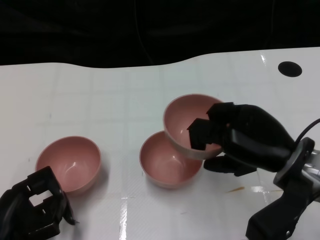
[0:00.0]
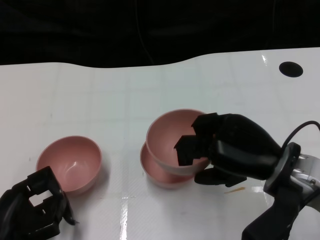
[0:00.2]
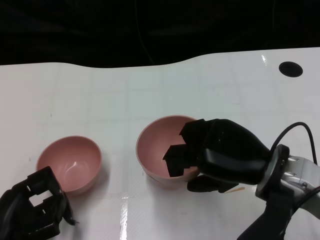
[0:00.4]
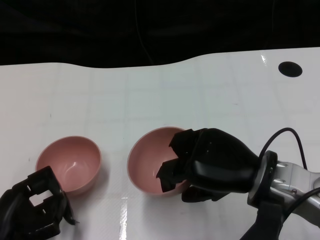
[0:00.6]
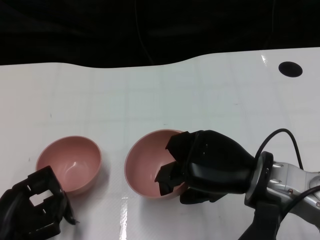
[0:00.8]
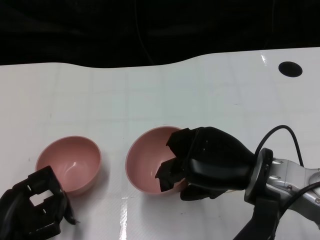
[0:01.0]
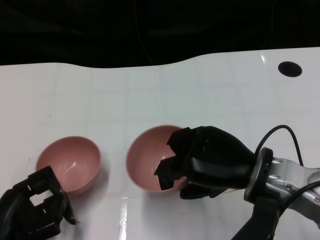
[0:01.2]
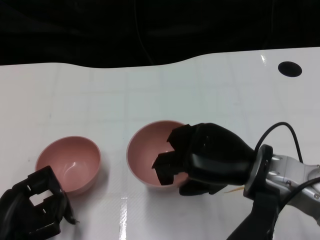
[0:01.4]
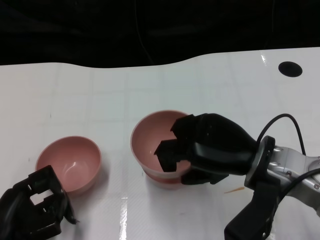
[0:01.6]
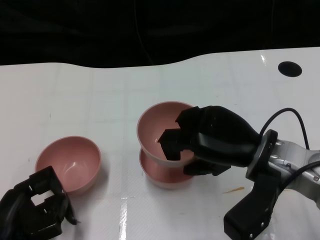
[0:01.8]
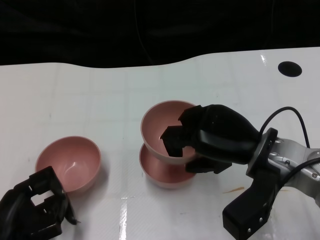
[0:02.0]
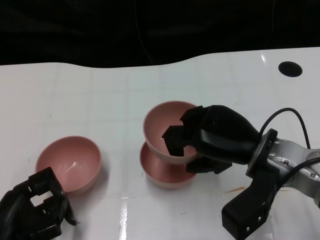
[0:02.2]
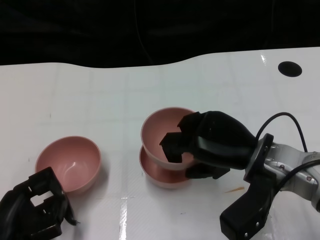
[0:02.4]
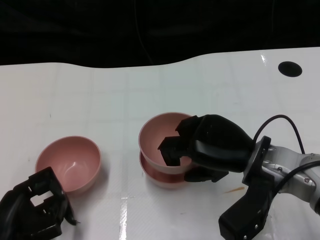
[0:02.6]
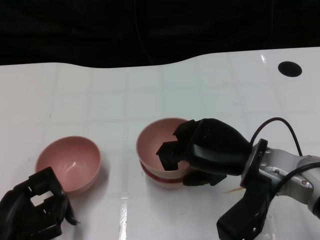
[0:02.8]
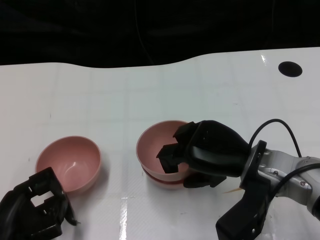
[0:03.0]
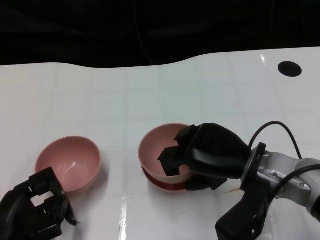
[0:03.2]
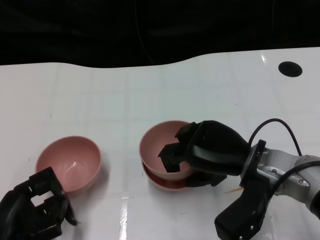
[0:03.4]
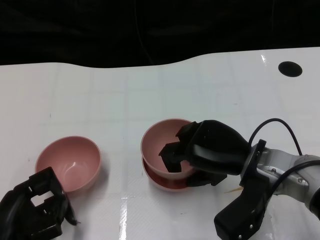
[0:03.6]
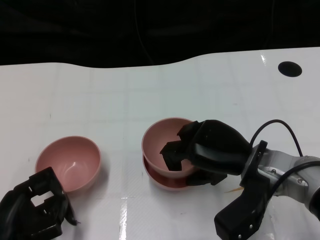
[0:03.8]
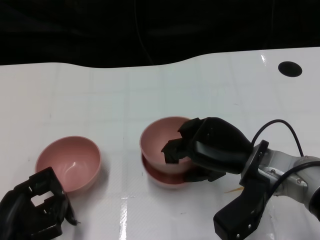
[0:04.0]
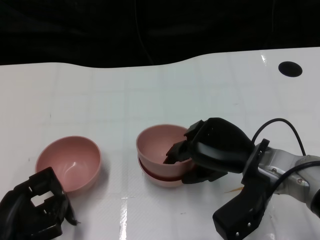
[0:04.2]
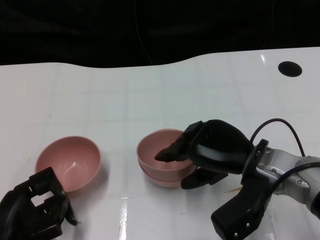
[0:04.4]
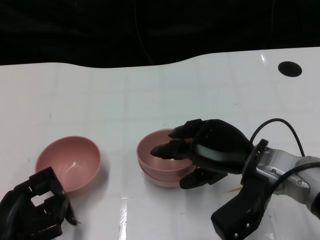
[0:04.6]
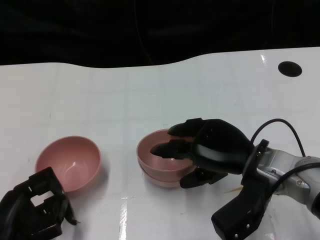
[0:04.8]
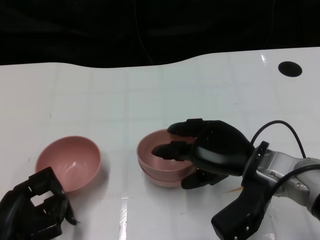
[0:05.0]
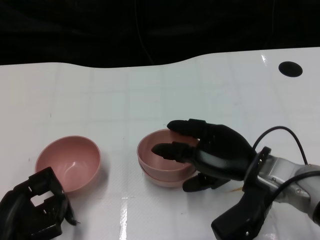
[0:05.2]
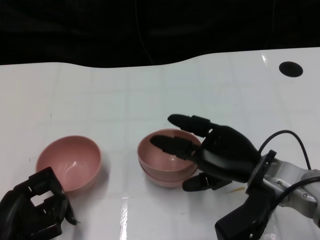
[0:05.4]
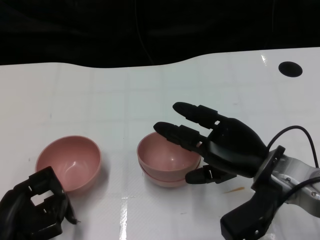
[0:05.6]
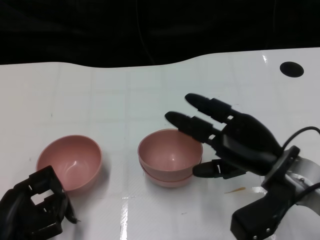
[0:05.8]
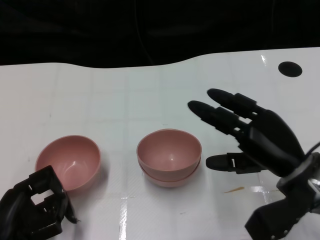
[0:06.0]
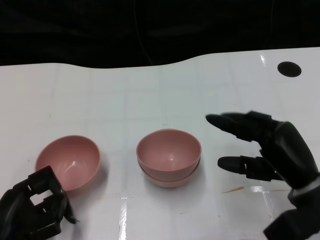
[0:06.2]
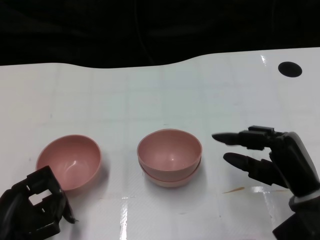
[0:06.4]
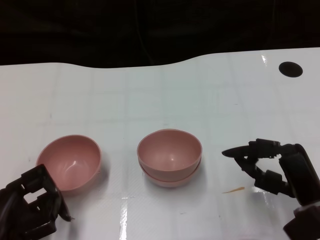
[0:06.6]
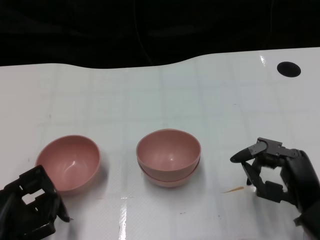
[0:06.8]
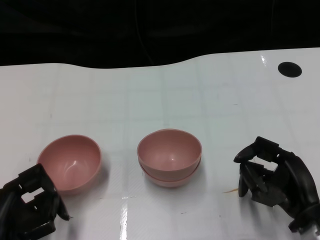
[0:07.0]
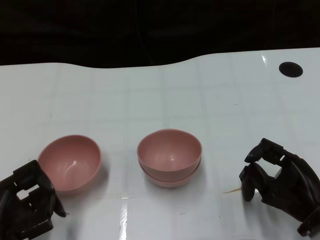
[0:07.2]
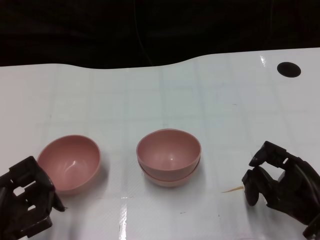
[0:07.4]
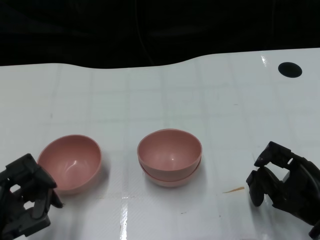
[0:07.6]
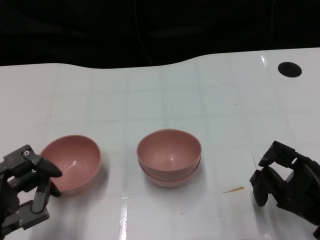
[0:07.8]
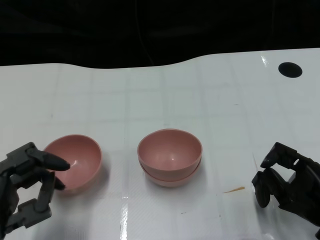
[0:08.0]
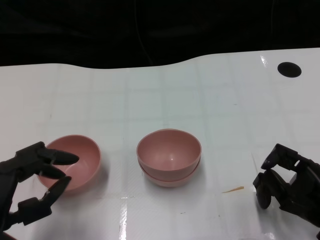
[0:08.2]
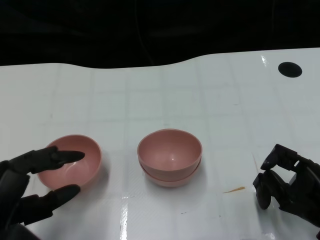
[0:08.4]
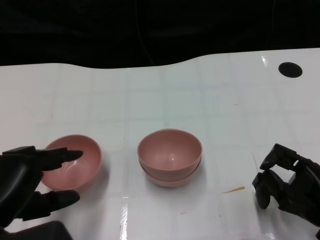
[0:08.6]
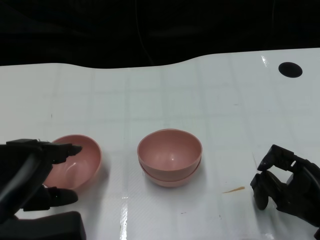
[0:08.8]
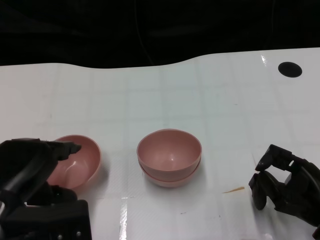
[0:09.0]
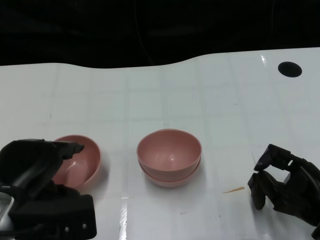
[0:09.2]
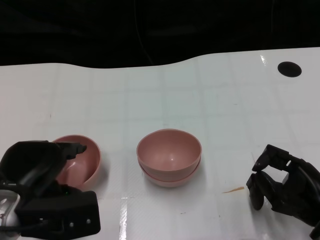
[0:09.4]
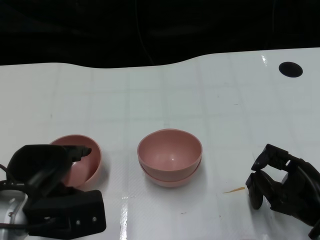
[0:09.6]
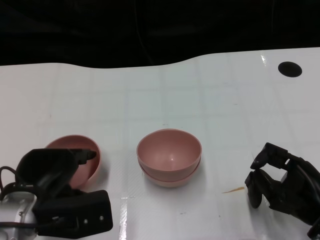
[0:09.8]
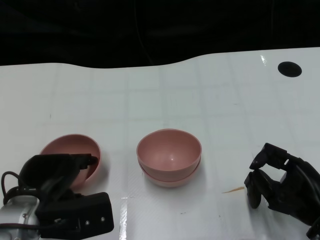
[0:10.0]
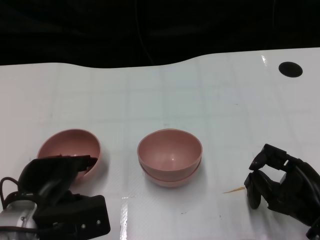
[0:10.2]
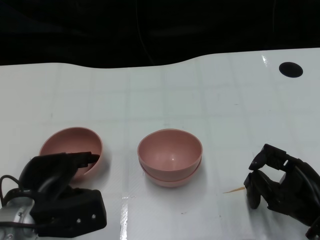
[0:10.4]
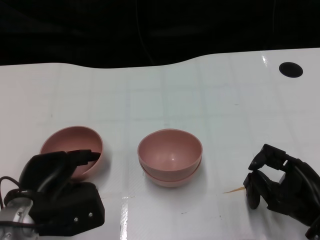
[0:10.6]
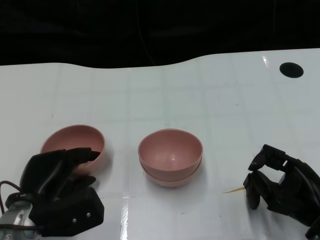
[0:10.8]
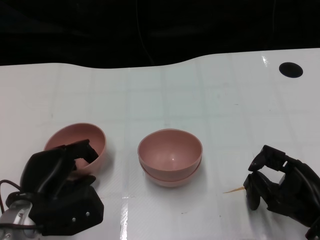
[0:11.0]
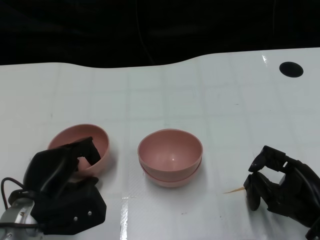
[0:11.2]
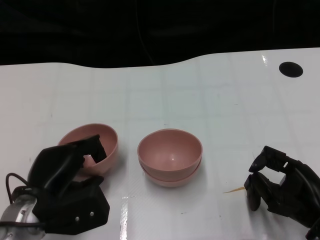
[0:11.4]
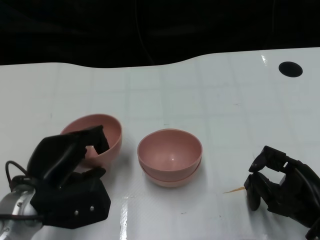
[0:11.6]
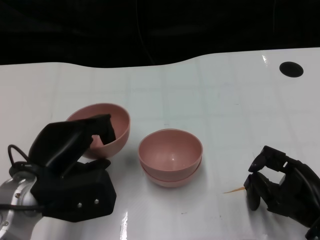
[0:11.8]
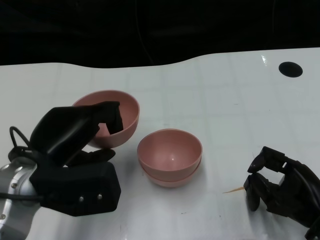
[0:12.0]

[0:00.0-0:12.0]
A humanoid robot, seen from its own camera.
Task of the whole recording: Pick up the bowl on one side of the table and place it on top of the middle bowl, then pick up the bowl on the other side of the table and place it on top of the middle bowls.
Step, 0:00.0 to 0:05.8: Place the bowl on the right onto the bowl in the middle with right gripper.
Step, 0:06.0 to 0:11.4: Grasp the bowl on the left with the left gripper.
0:00.0 to 0:03.0: The hands make only small movements.
0:03.0 to 0:04.4: The hands stay close to where they were, moving slightly.
0:04.4 to 0:06.0: The right hand travels to the right by about 5 cm.
0:06.0 to 0:07.6: The right hand is displaced downward and to the right by some 10 cm.
0:07.6 to 0:09.0: The left hand is displaced upward by approximately 5 cm.
0:09.0 to 0:10.4: The left hand moves downward, roughly 5 cm.
0:10.4 to 0:12.0: The left hand moves upward, some 10 cm.

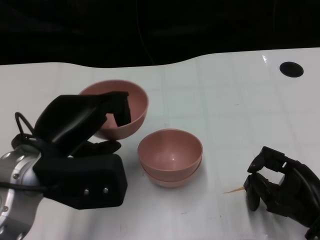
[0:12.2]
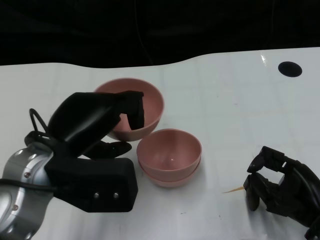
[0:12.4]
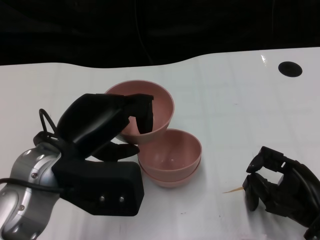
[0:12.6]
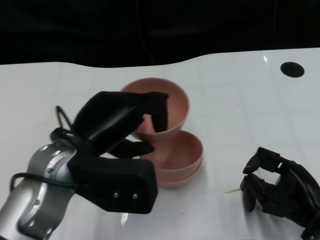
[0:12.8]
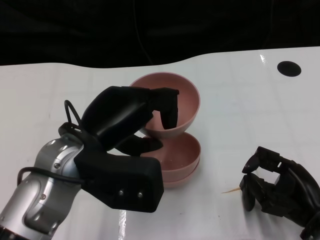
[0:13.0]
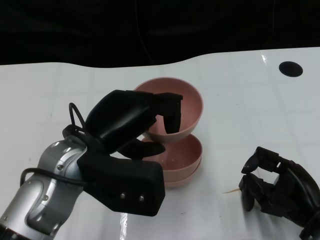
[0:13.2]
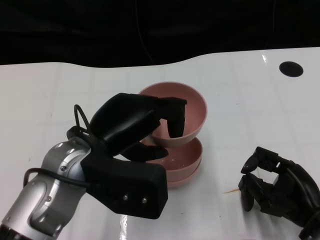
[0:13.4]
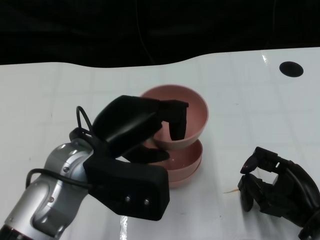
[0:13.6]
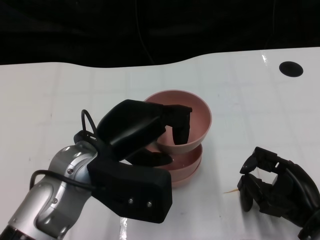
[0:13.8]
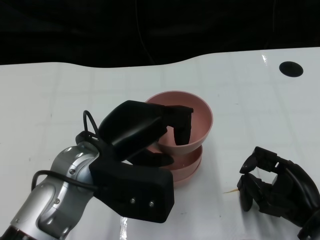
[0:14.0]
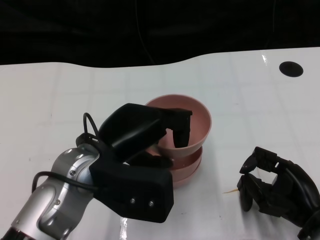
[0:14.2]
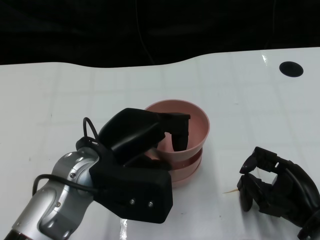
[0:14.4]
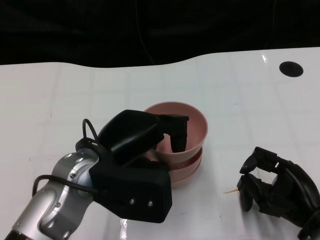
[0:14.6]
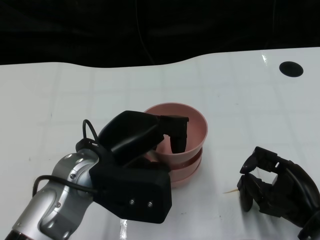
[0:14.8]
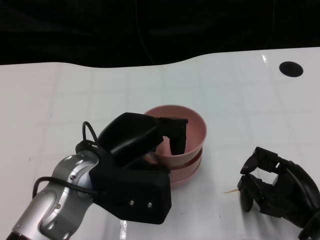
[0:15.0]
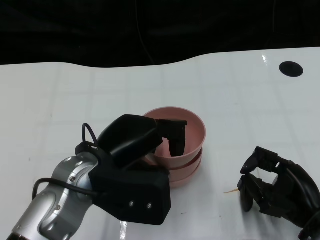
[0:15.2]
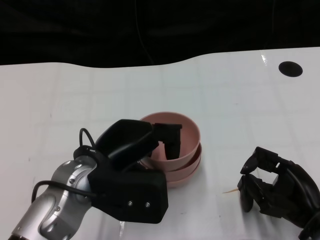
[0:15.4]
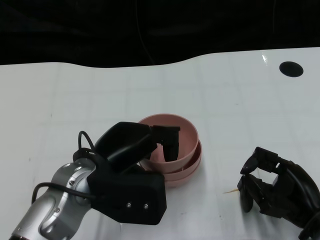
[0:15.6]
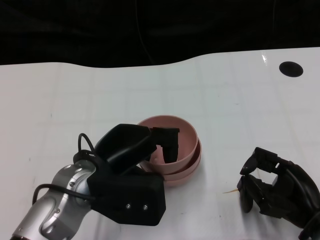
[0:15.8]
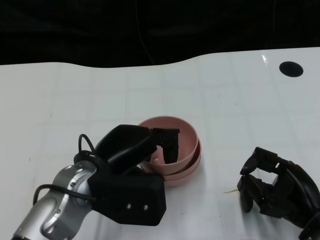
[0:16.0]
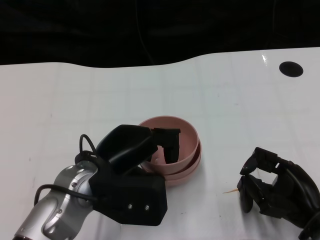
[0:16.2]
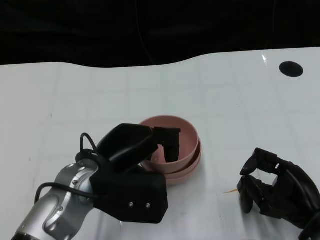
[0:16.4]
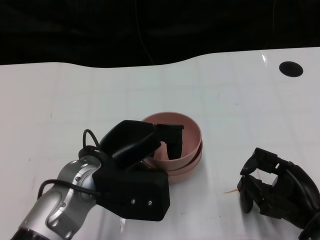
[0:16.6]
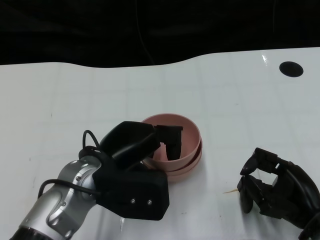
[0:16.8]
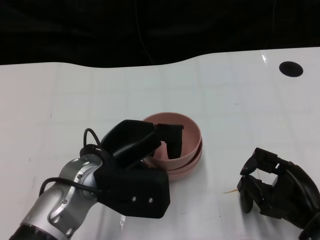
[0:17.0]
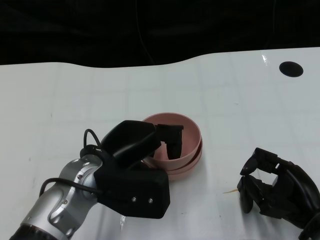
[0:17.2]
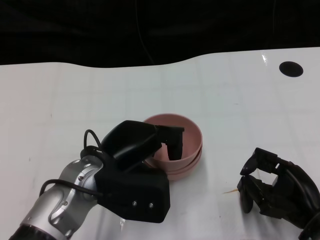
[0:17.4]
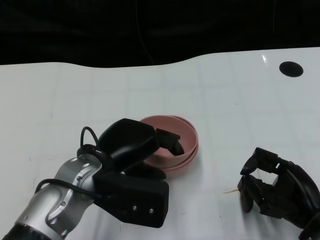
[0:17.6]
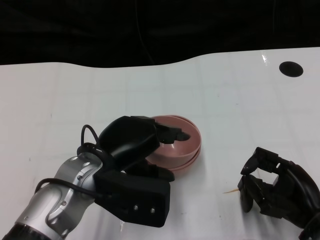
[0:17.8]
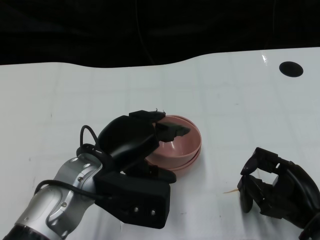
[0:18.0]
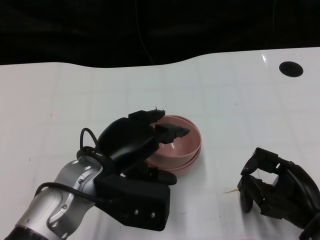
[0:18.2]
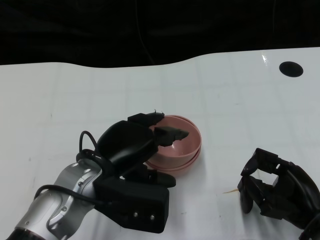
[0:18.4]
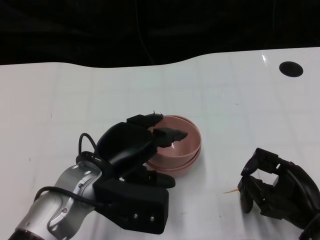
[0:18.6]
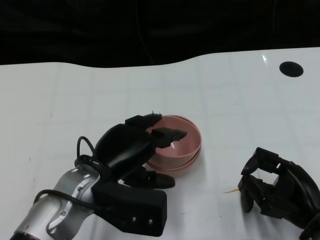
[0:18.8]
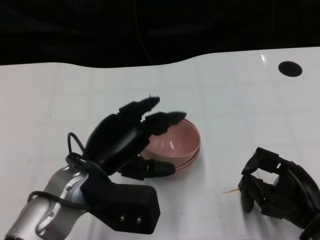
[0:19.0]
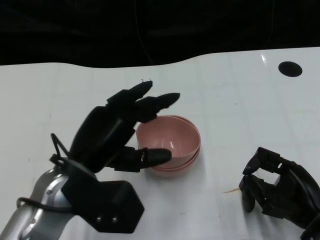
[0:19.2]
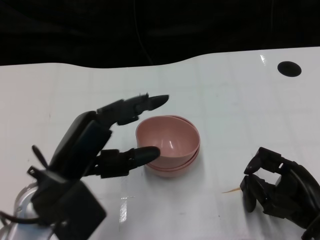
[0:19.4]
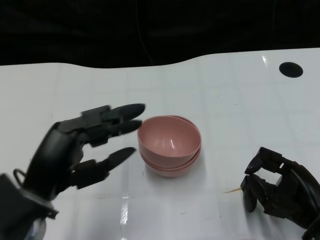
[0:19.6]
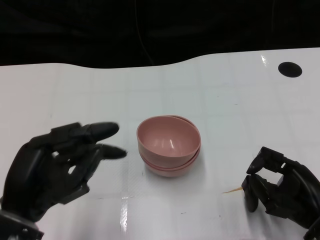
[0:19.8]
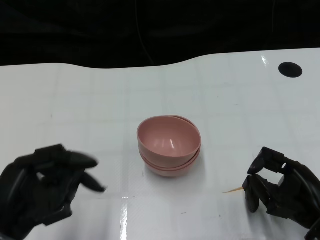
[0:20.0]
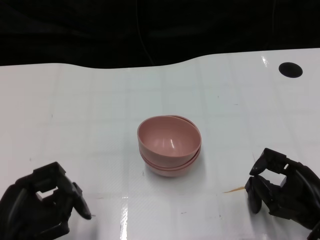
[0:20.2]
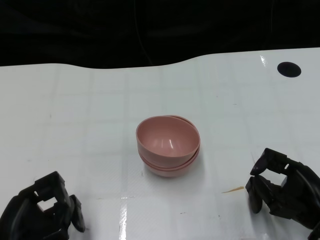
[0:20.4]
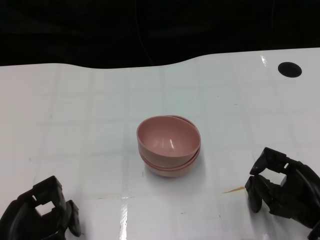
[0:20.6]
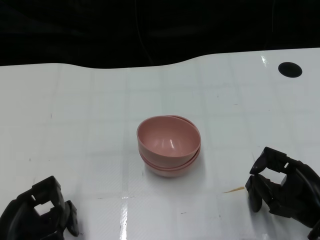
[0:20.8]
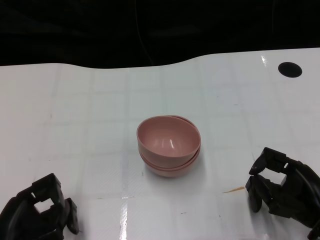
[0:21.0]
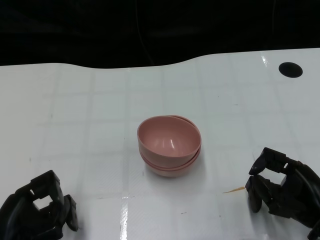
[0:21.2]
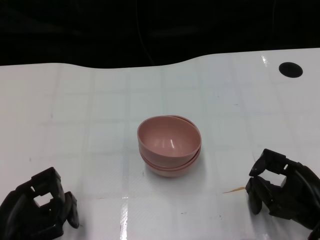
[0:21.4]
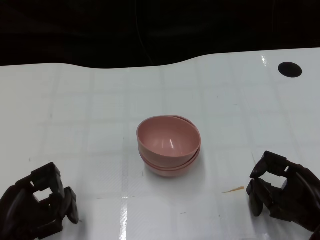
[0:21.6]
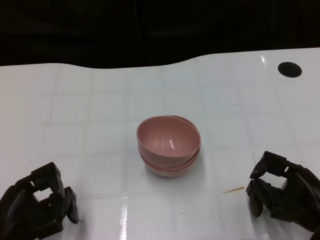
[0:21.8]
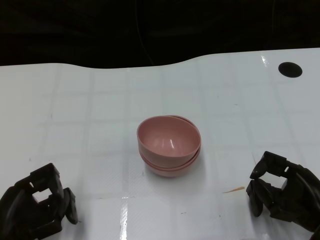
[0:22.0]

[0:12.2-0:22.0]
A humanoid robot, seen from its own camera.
Task of the whole recording: Pick up the bowl on one side of the table and place it on top of the middle bowl, then pick up the bowl on the other side of the table and place it on top of the middle bowls.
Step, 0:12.2 to 0:19.4: Place the bowl on the left onto the bowl in the middle with left gripper.
0:12.2 to 0:13.6: The left hand travels to the right by some 5 cm.
0:13.6 to 0:17.8: The hands stay close to where they were, moving slightly.
0:19.2 to 0:20.6: The left hand moves to the left, downward and backward, about 15 cm.
0:20.6 to 0:22.0: The hands move only a little.
